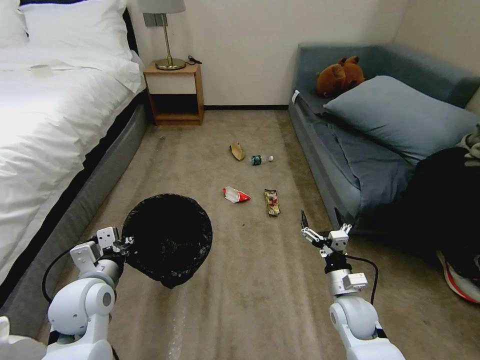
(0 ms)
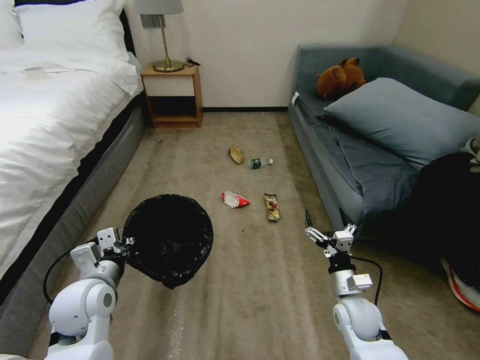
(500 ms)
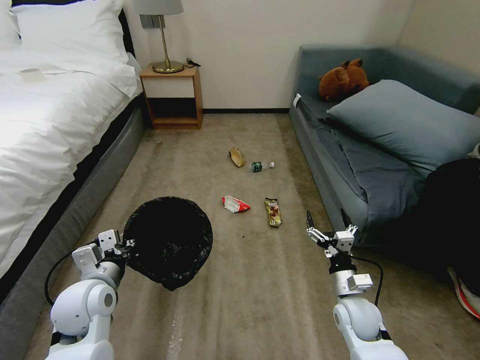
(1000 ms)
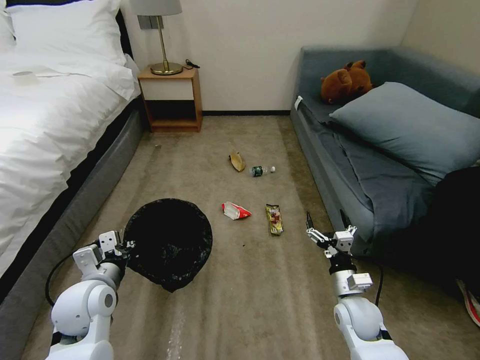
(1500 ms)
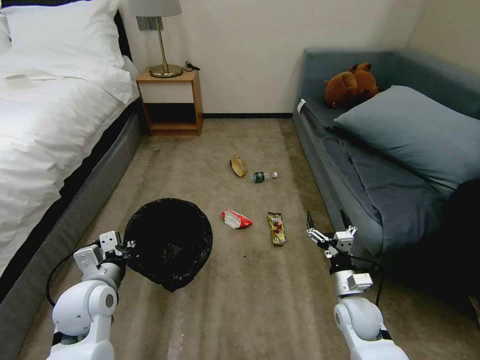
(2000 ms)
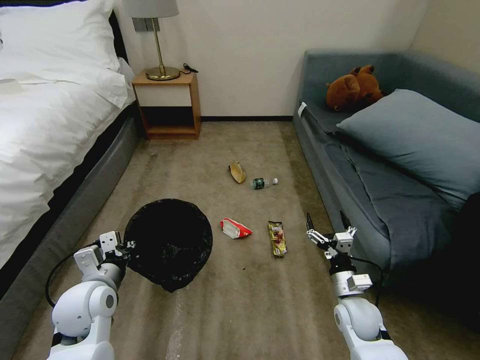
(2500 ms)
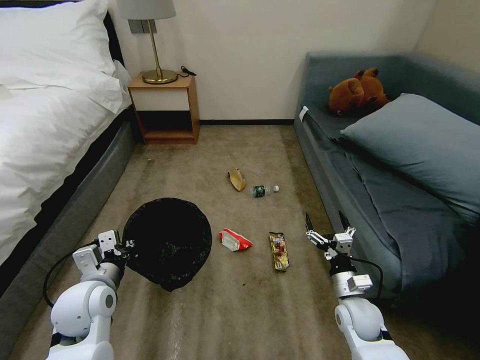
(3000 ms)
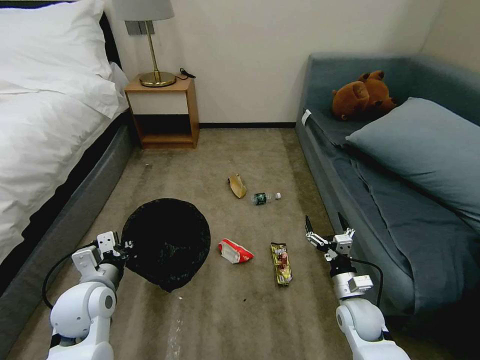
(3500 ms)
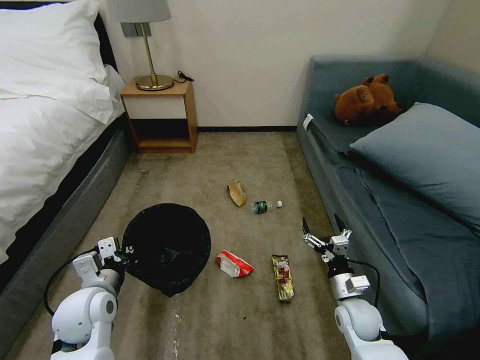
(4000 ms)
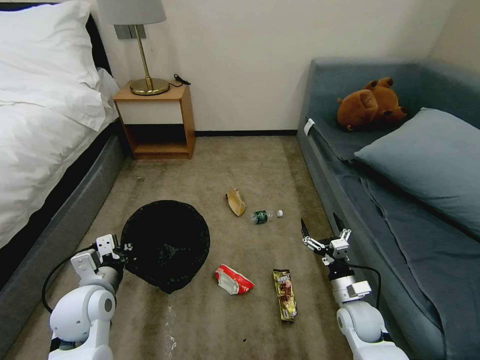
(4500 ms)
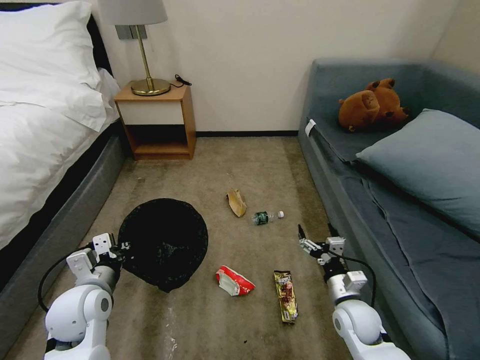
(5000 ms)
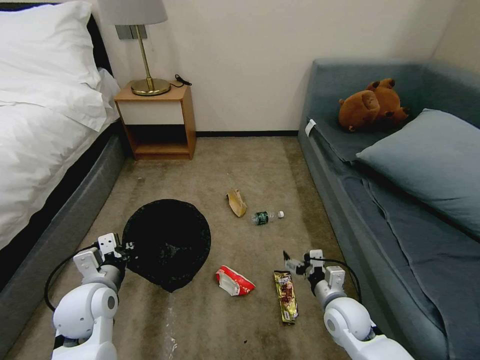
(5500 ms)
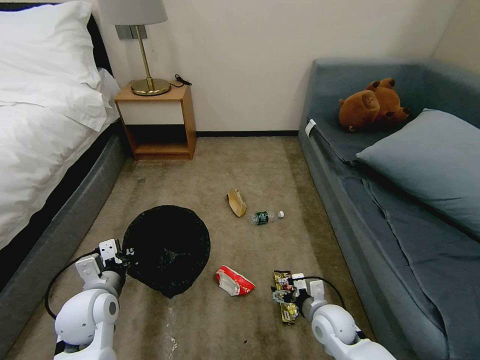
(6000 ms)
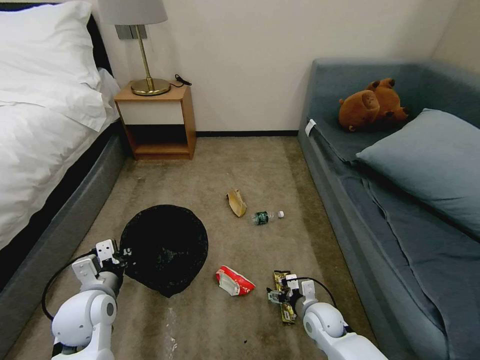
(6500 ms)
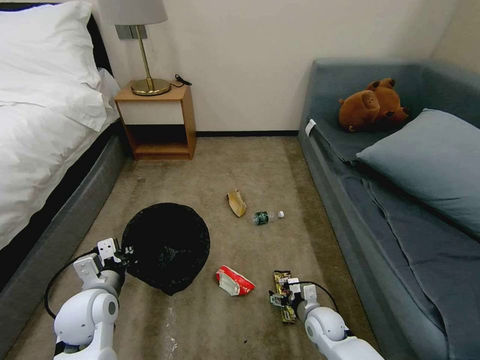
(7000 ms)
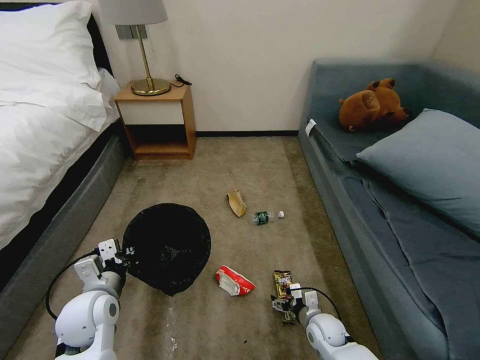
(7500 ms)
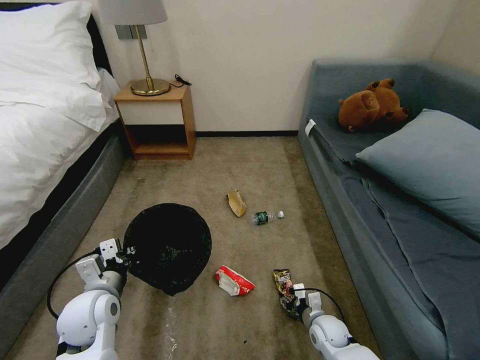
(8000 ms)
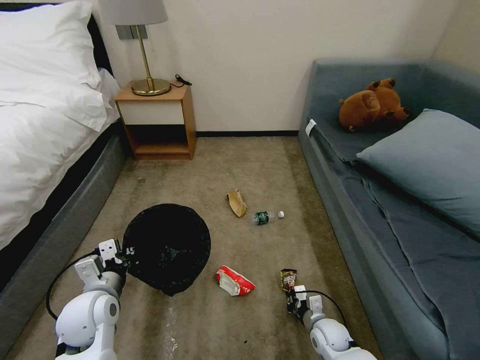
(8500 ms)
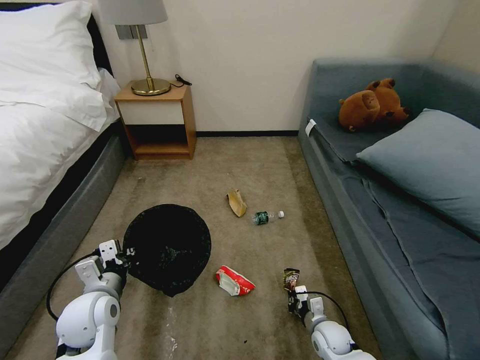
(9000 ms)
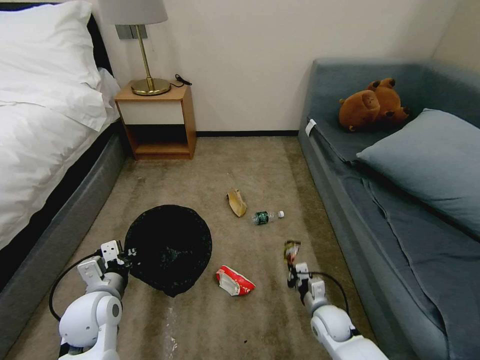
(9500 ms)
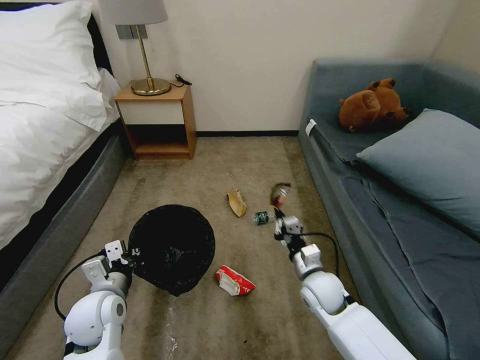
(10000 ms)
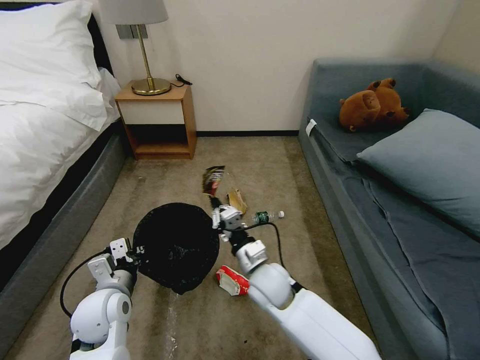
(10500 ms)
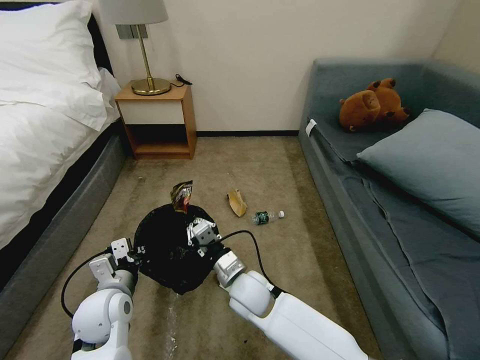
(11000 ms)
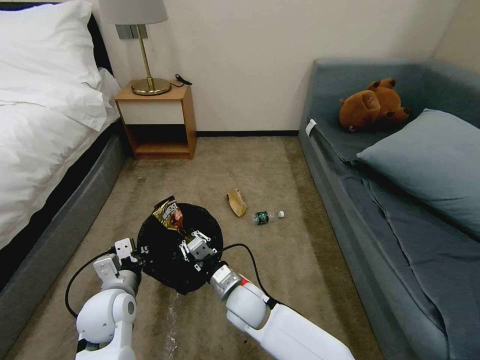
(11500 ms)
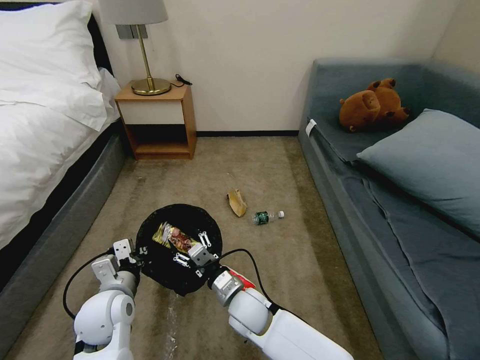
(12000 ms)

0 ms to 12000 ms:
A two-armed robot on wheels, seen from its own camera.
Task of the whole recording: Pick up the trash bin, then pick up the garbage on the floor and place it into the trash bin.
4000 ms to 6000 ms: The right gripper heads to the left, covering about 5 cm.
6000 ms to 8000 ms: The right gripper heads downward, covering about 10 cm, and closes.
8000 ms to 10000 ms: The right gripper moves upward, some 15 cm, and closes.
10000 ms to 12000 ms: The right gripper moves to the left, about 20 cm, and opens.

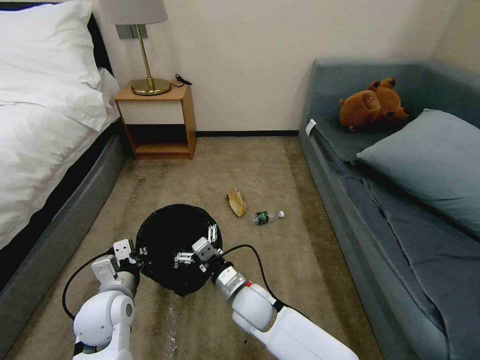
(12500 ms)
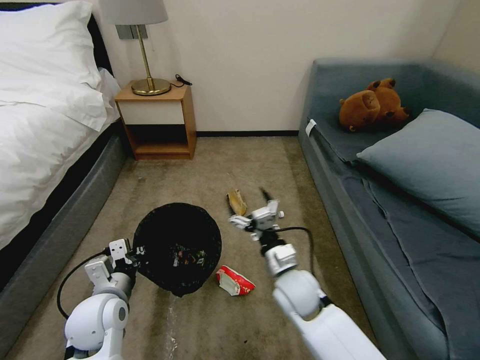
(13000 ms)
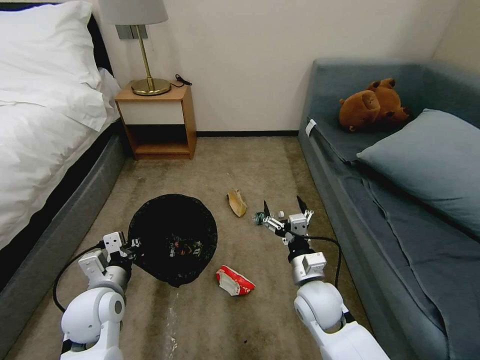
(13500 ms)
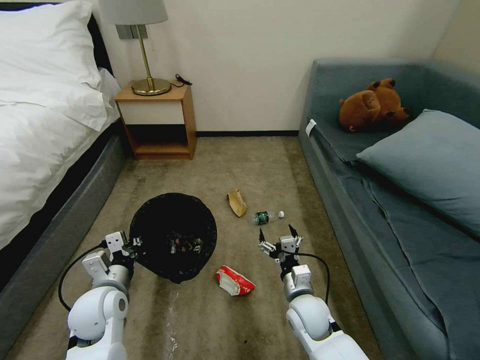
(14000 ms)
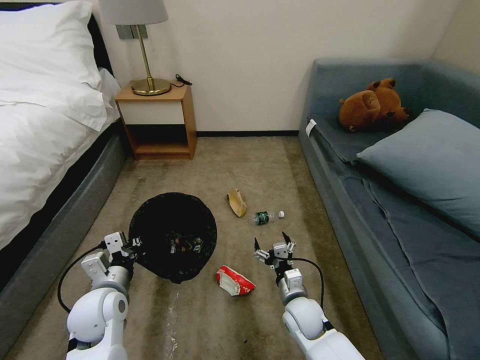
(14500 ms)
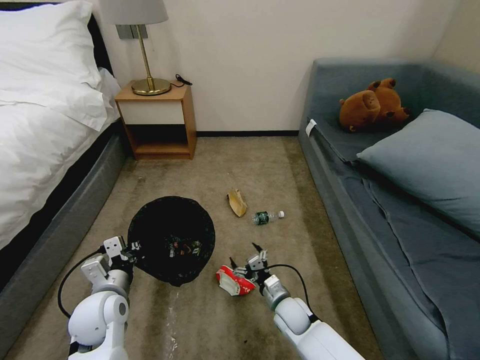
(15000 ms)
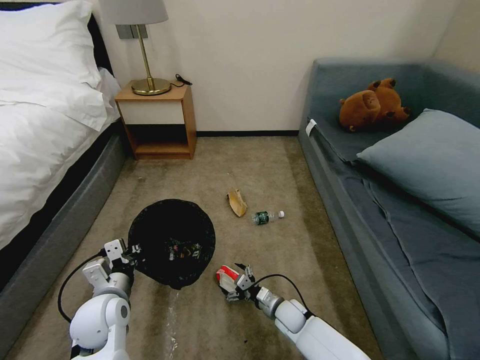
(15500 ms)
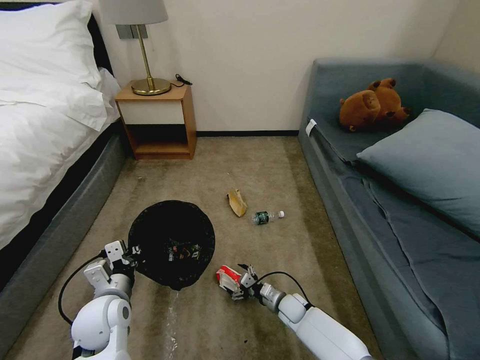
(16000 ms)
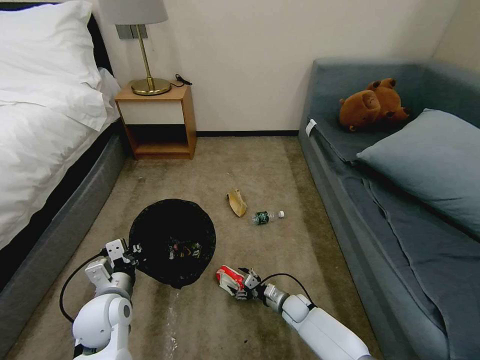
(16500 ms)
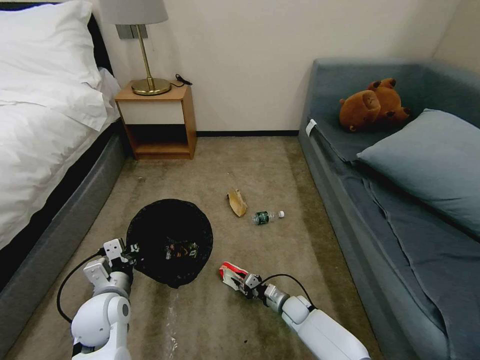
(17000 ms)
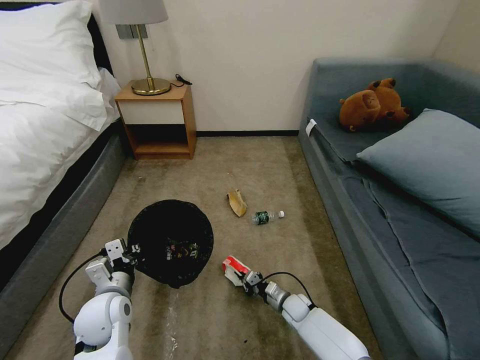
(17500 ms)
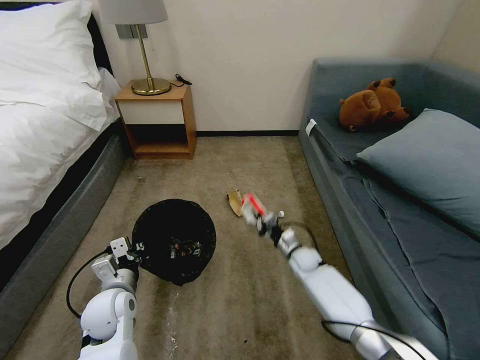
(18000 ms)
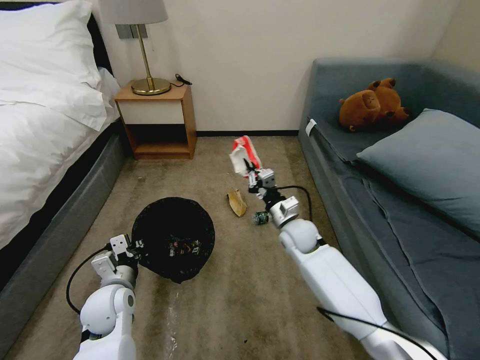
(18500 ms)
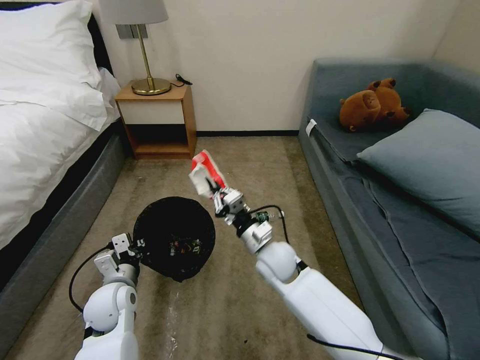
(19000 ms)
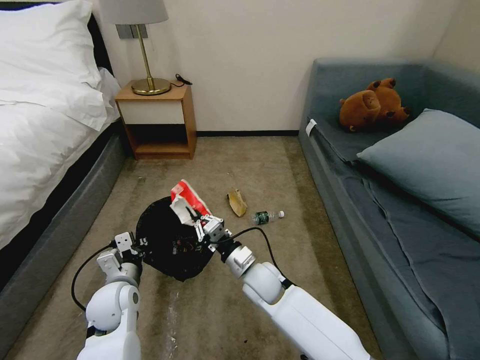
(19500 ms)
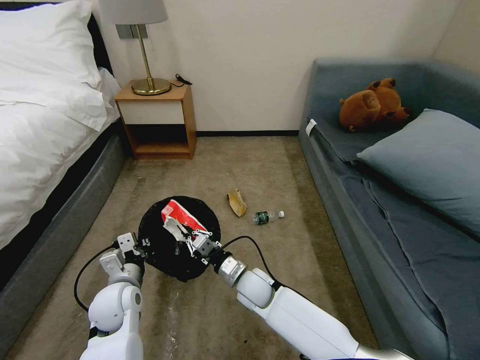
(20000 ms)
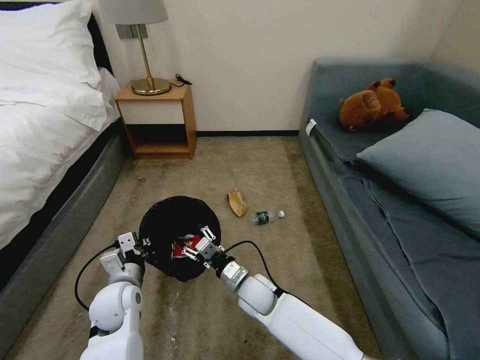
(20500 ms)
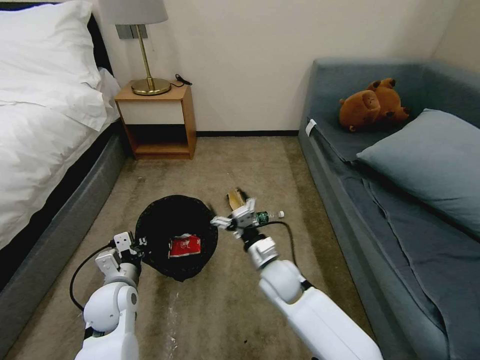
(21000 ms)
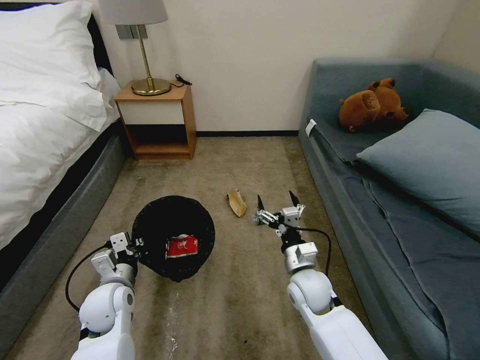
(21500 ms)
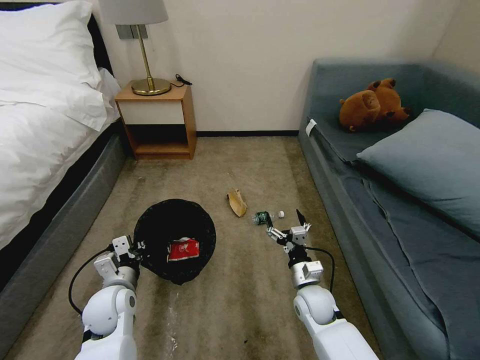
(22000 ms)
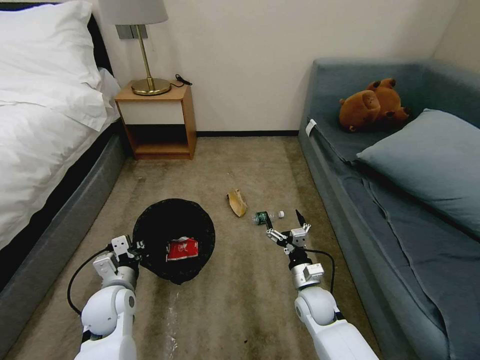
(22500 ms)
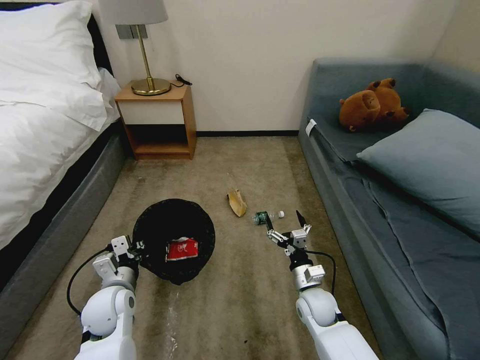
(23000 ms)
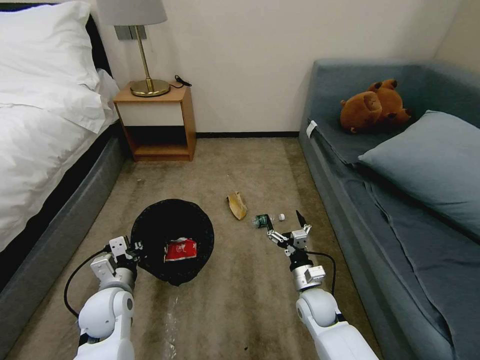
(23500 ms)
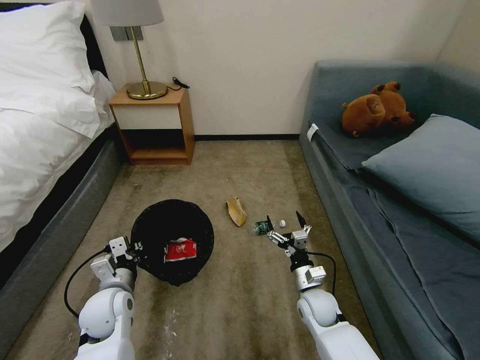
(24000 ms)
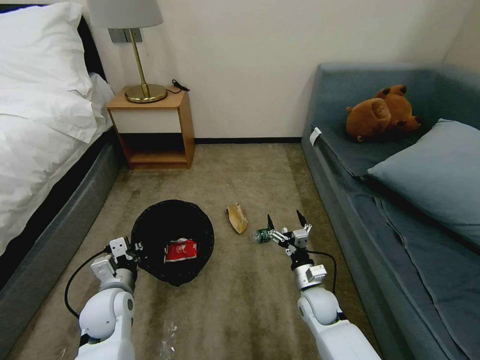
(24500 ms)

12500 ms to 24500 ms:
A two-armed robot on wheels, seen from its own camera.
Task of the whole recording: Pick up the trash bin, then pick up the garbage on the floor and place it into the trash bin.
12500 ms to 14500 ms: The right gripper travels to the right and downward by roughly 15 cm.
14500 ms to 16500 ms: The right gripper travels downward and forward by about 15 cm.
16500 ms to 18500 ms: The right gripper is displaced upward and forward by about 30 cm, and closes its fingers.
18500 ms to 20500 ms: The right gripper goes about 20 cm backward, to the left and downward, and opens its fingers.
20500 ms to 22500 ms: The right gripper moves to the right, approximately 15 cm, and opens its fingers.
22500 ms to 24500 ms: The two grippers keep their place.

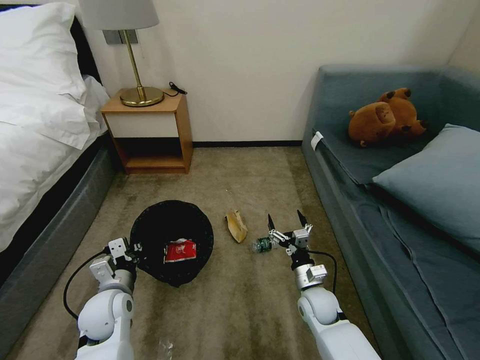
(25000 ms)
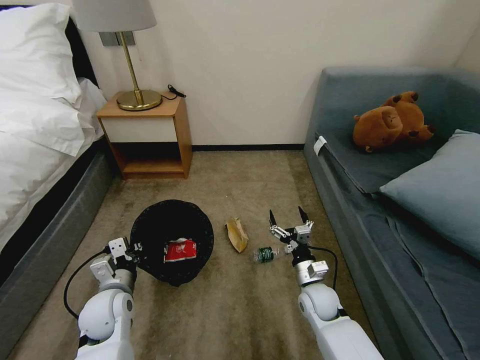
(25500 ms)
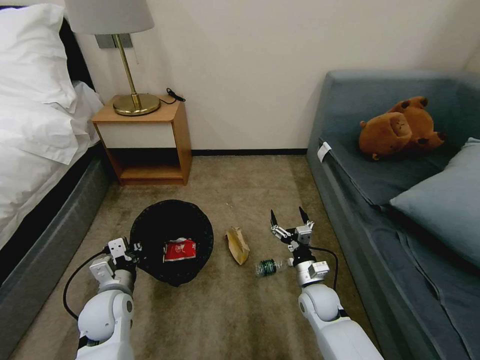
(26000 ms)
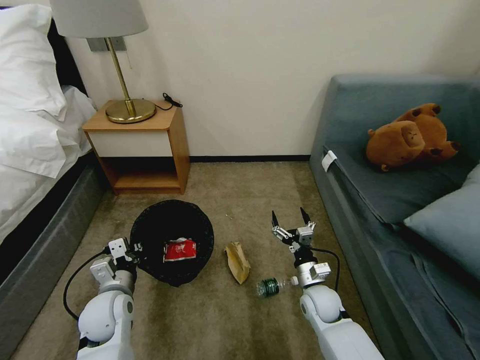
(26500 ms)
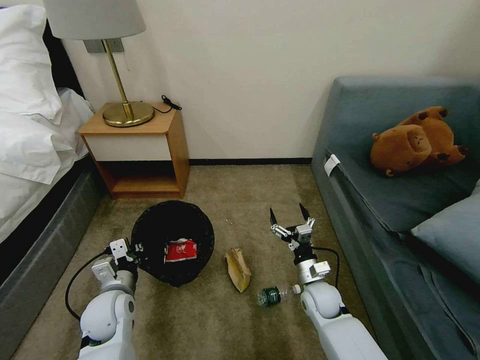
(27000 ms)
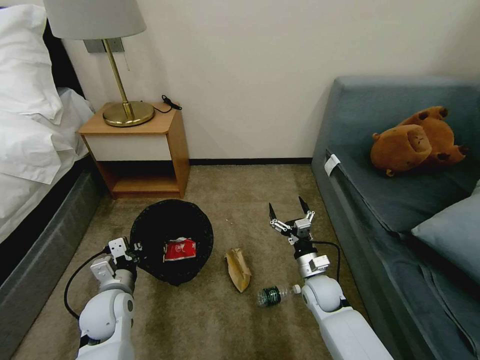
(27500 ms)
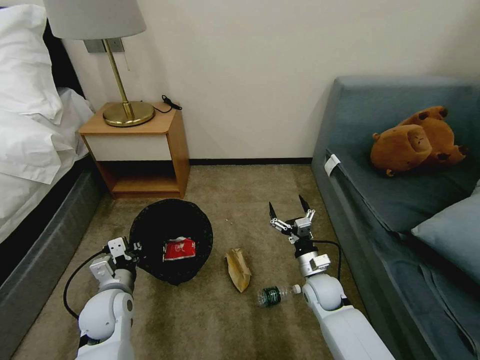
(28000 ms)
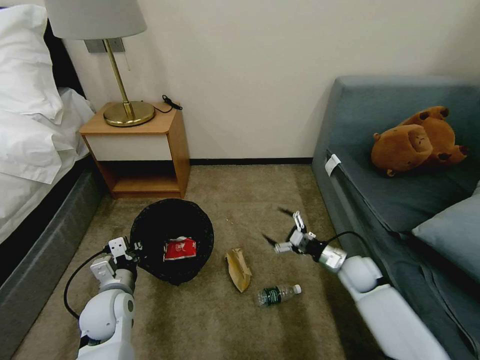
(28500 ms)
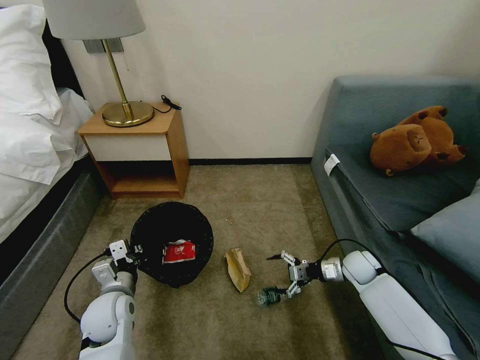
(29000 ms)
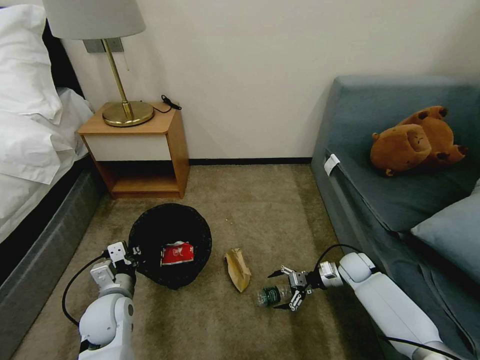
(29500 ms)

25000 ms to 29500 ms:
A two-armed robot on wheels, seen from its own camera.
Task of the whole recording: Pick up the trash bin, then pick up the garbage on the floor and place it into the trash bin.
27000 ms to 29500 ms: The right gripper moves to the right and forward, roughly 15 cm.
